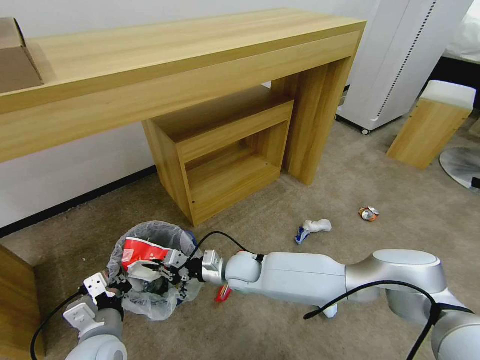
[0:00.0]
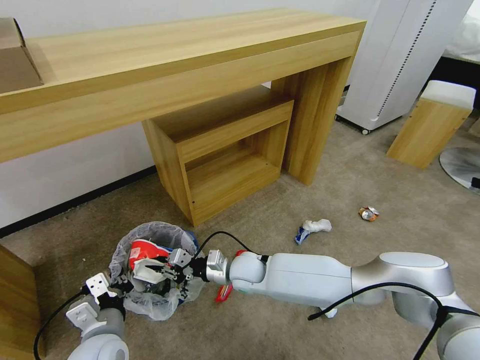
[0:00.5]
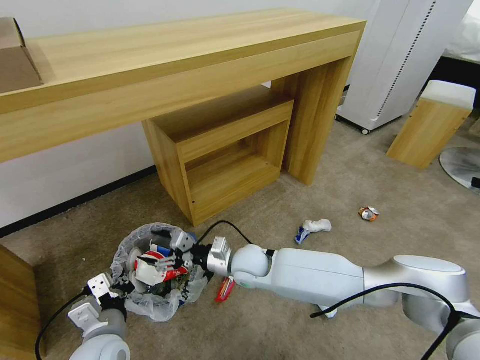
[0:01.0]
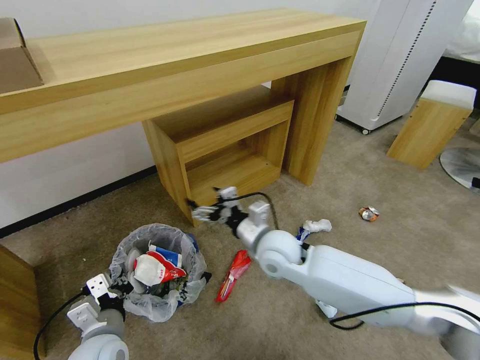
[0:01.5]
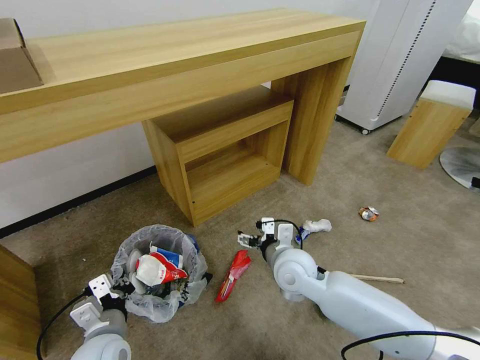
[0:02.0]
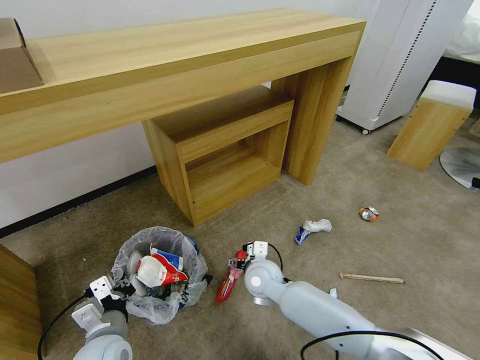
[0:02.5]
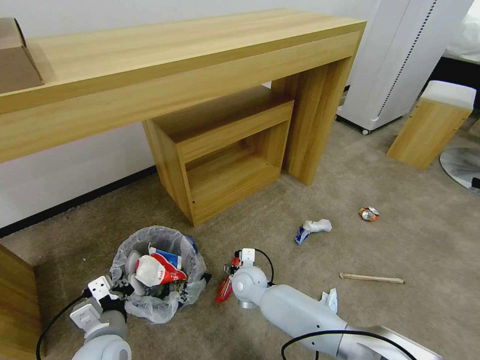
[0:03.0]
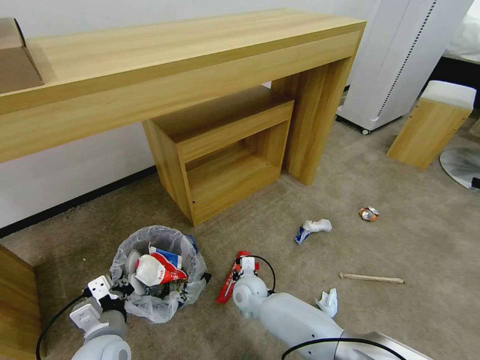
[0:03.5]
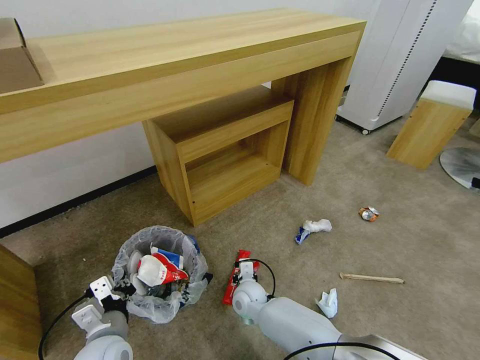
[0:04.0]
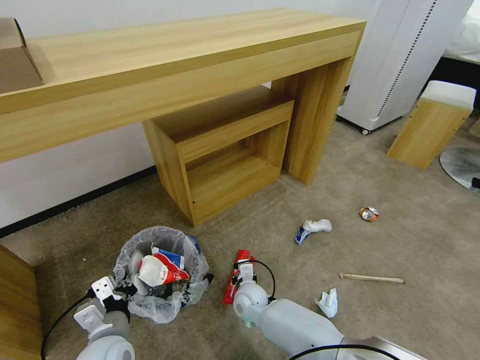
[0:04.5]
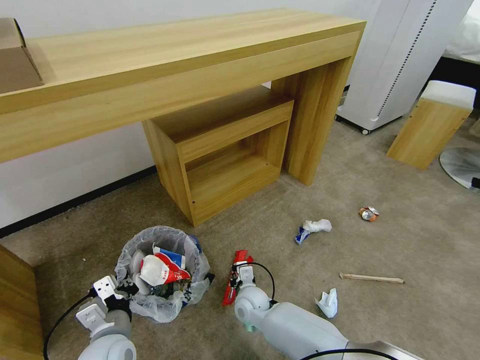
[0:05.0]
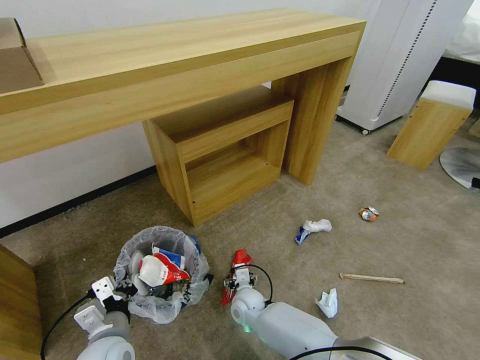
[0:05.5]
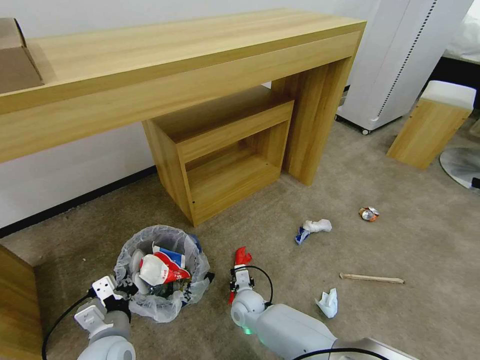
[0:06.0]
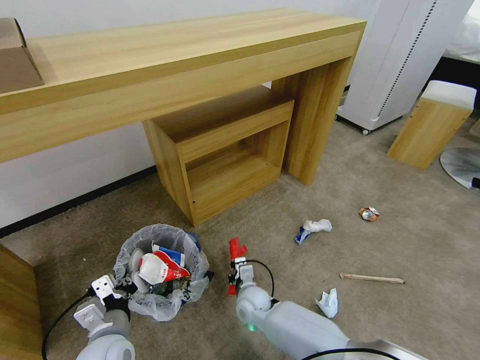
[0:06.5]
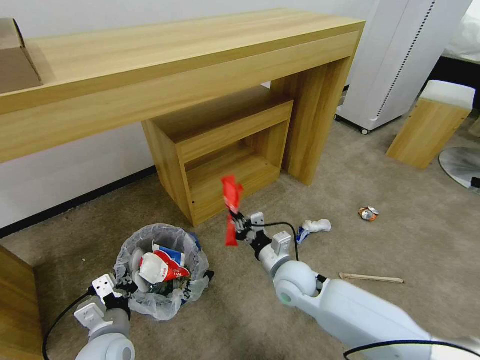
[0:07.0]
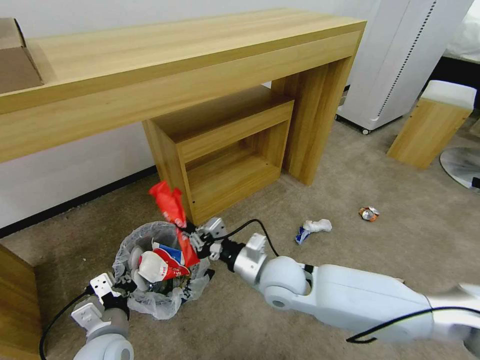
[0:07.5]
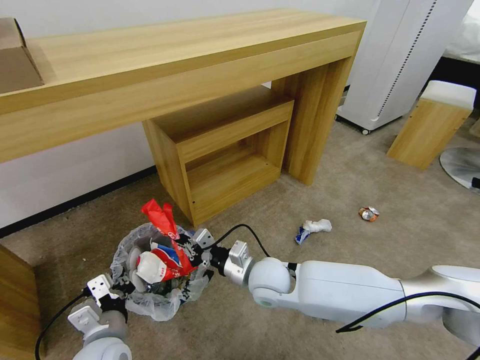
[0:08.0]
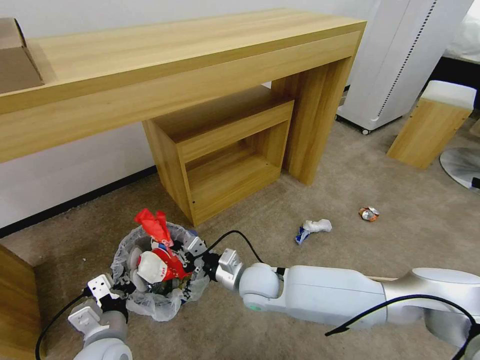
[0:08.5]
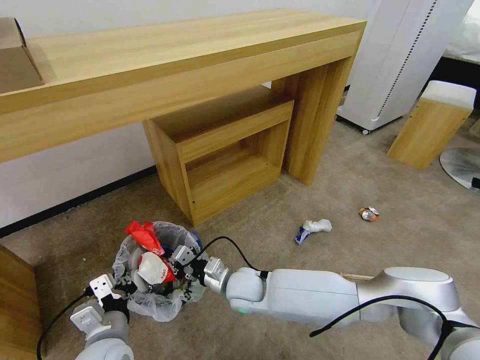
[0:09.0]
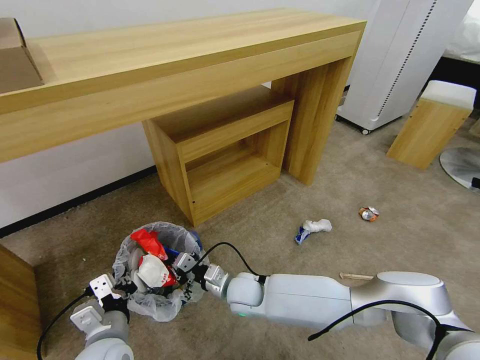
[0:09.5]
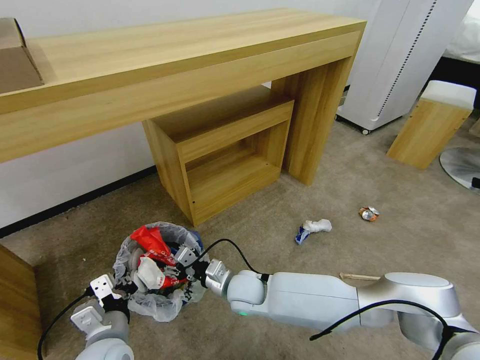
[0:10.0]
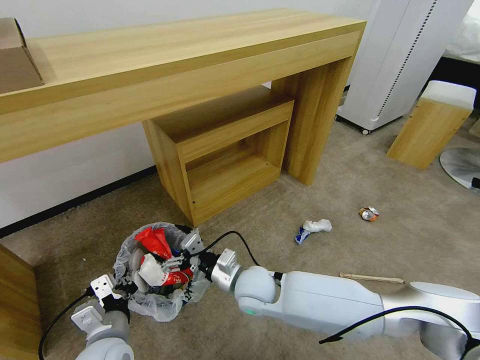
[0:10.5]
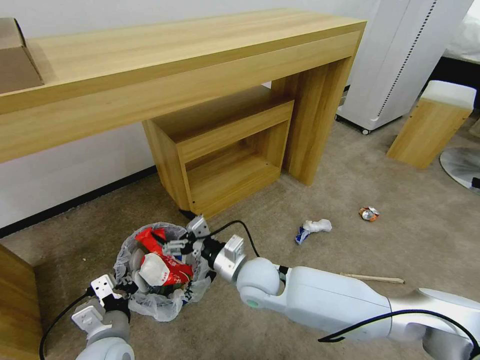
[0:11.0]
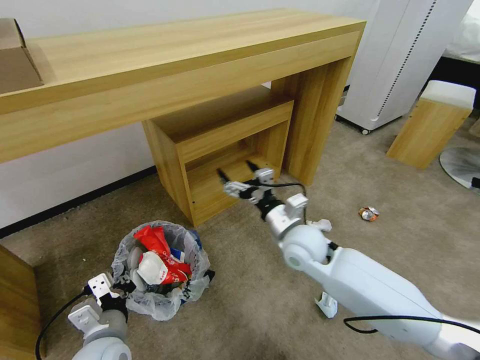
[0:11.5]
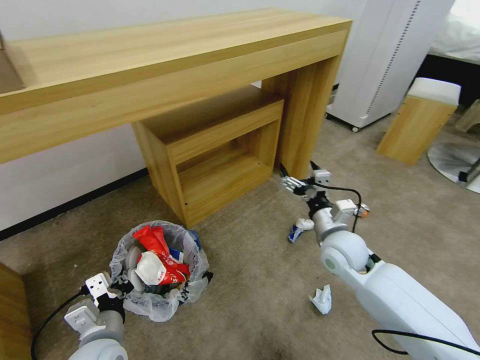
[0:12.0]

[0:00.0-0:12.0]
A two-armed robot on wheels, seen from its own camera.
Task of the whole recording: Pick up the trash bin and place the garbage on the floor into it.
0:00.0 to 0:02.0: The right gripper travels to the right and upward by about 15 cm, and opens.
0:02.0 to 0:04.0: The right gripper moves downward and to the left, roughly 20 cm, and closes up.
0:04.0 to 0:06.0: The right gripper opens, then closes once more.
0:06.0 to 0:08.0: The right gripper is displaced upward by some 20 cm, and closes up.
0:08.0 to 0:10.0: The right gripper heads downward, covering approximately 5 cm, and opens up.
0:10.0 to 0:12.0: The right gripper goes about 25 cm to the right and upward, and opens its fingers.

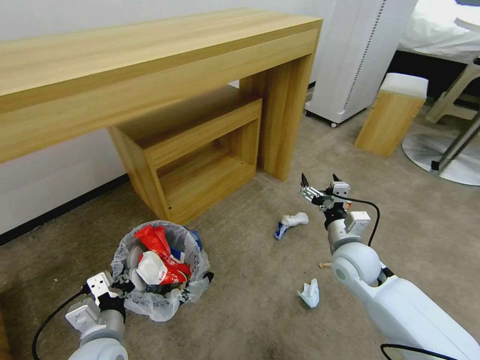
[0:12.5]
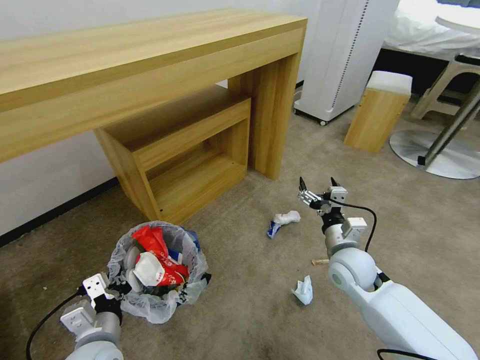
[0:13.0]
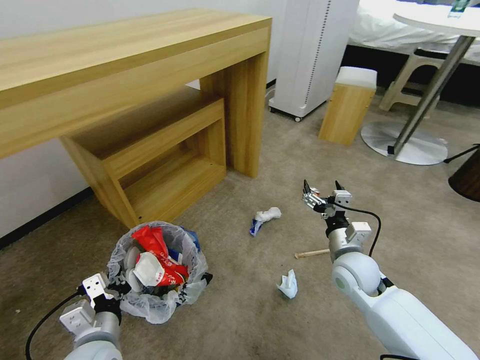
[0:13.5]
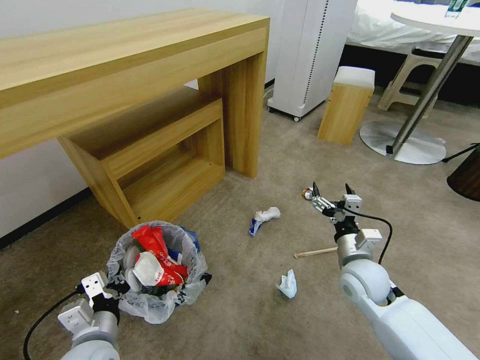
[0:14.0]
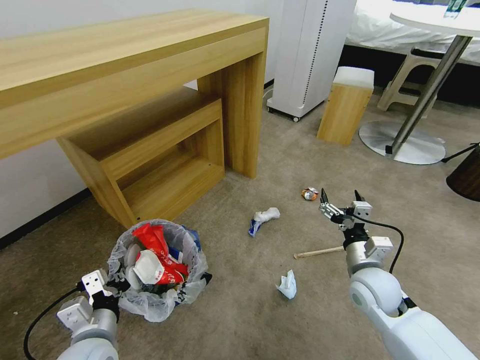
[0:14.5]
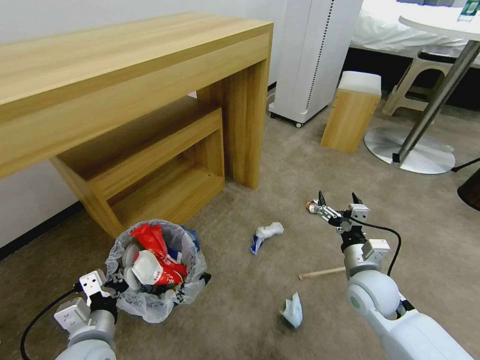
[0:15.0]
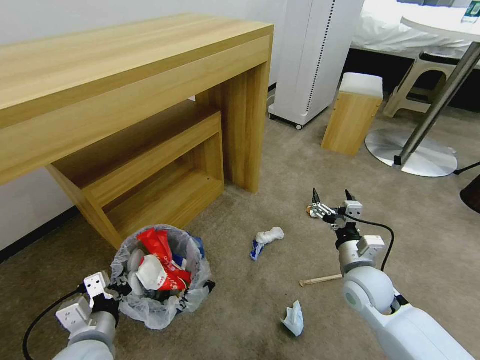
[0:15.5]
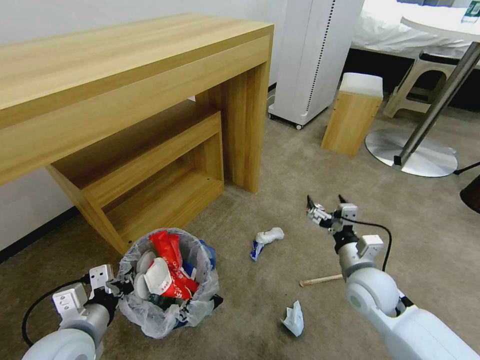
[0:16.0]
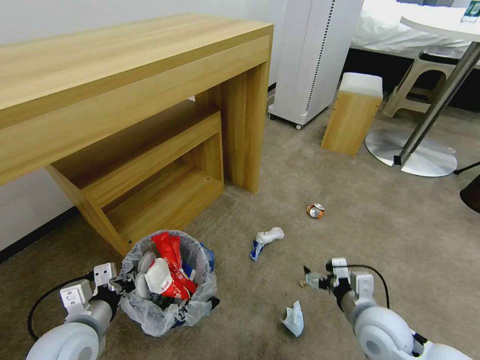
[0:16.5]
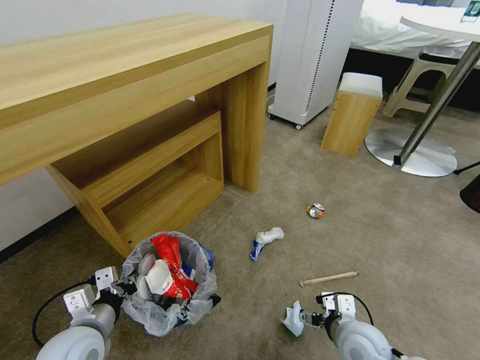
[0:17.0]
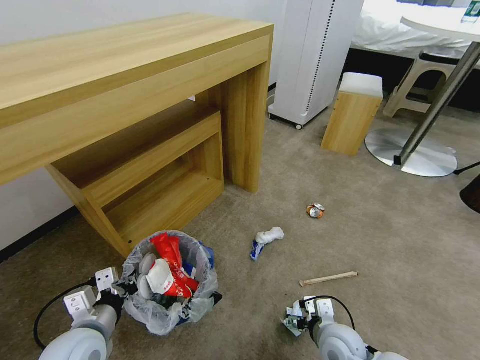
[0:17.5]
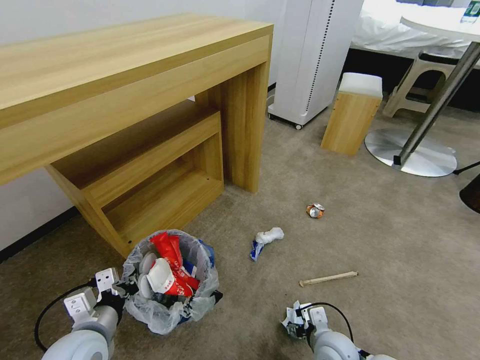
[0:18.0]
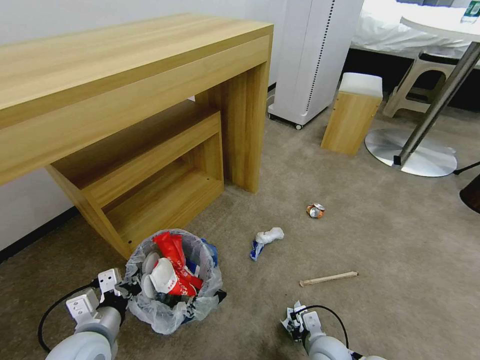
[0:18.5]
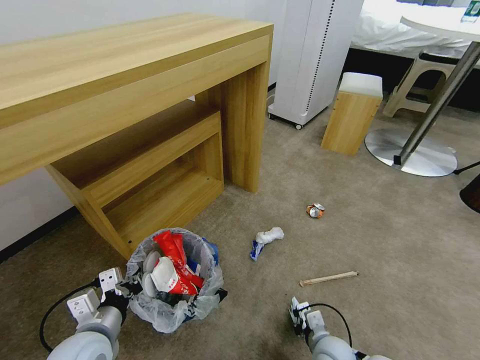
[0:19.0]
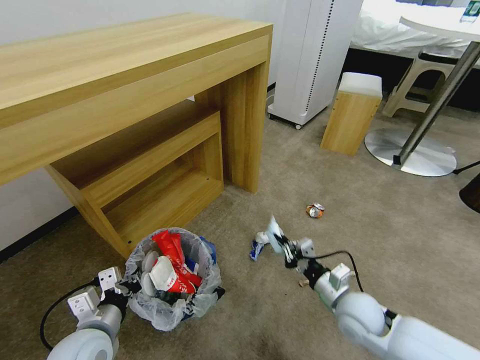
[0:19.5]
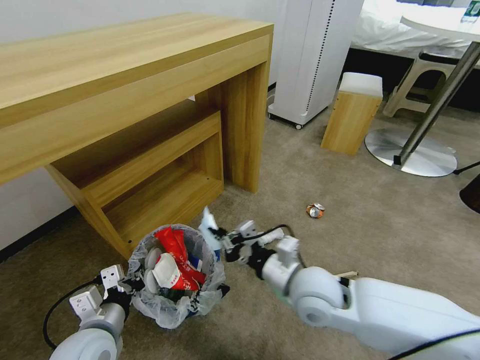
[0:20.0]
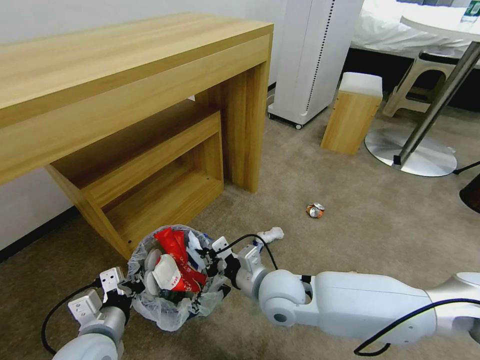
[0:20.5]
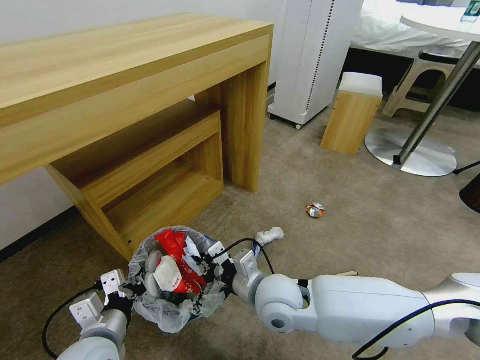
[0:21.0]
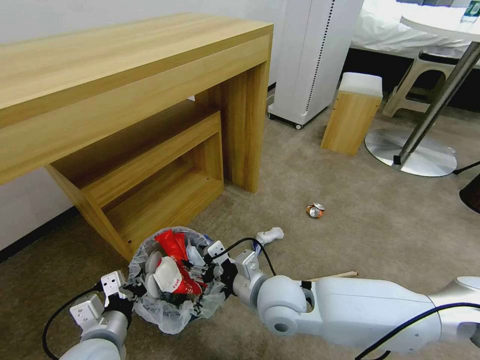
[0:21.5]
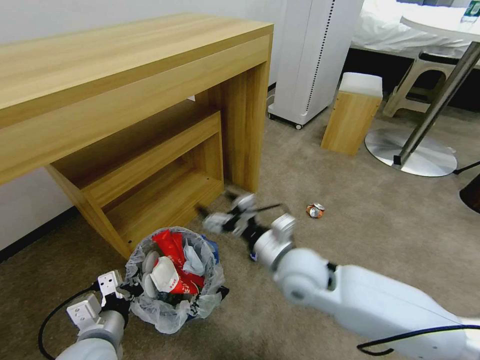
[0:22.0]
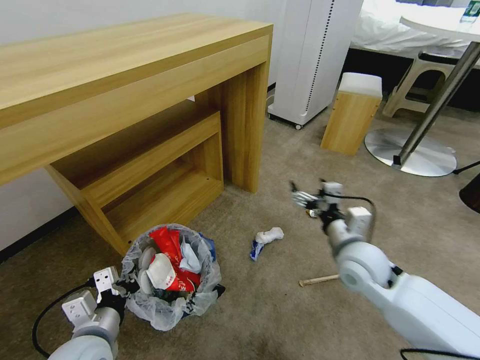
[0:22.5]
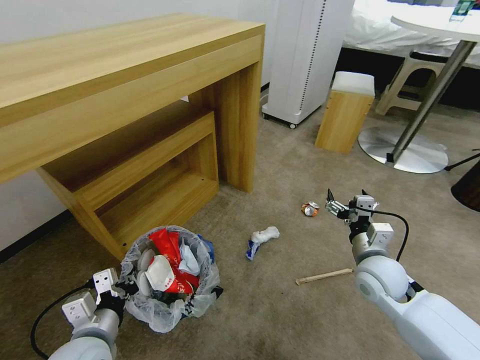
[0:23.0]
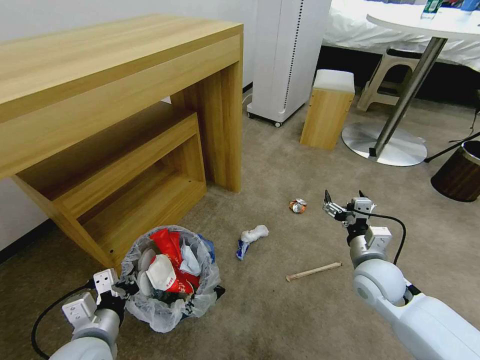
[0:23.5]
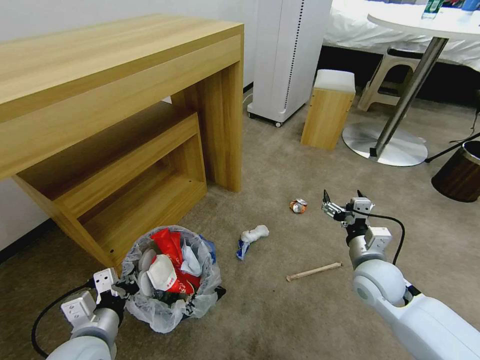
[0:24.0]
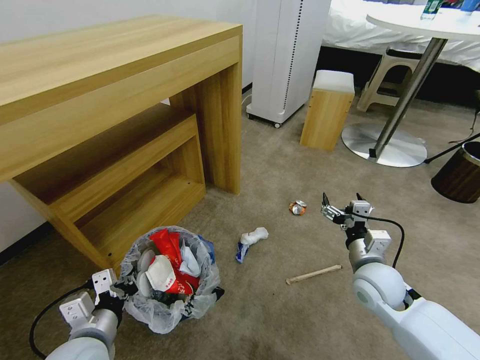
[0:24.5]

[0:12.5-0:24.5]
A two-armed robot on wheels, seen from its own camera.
Task of the whole recording: Pick up the trash bin and place the garbage on the floor into it.
0:12.5 to 0:14.5: The right gripper ends up some 5 cm from where it was.
0:14.5 to 0:16.5: The right gripper travels backward by roughly 10 cm.
0:16.5 to 0:18.5: The right gripper goes approximately 15 cm downward and to the left, and closes.
0:18.5 to 0:20.5: The right gripper moves upward, to the left and forward, roughly 25 cm, and closes.
0:20.5 to 0:22.5: The right gripper shifts roughly 15 cm to the right, and opens.
0:22.5 to 0:24.5: The right gripper shifts by approximately 5 cm.

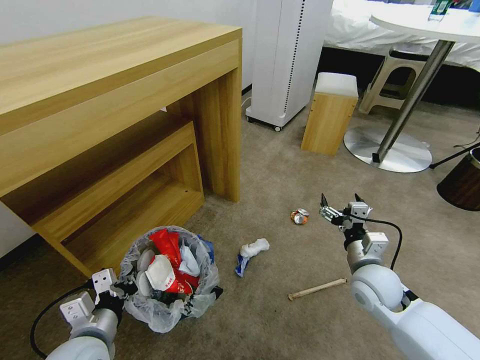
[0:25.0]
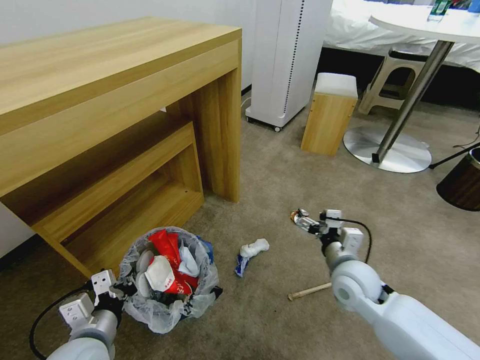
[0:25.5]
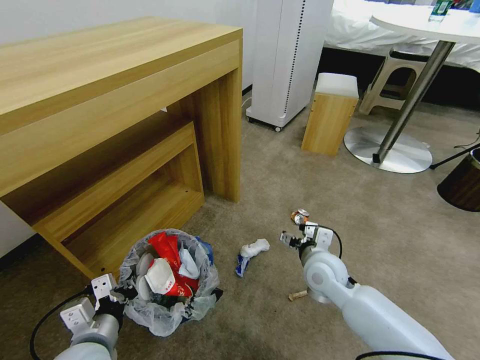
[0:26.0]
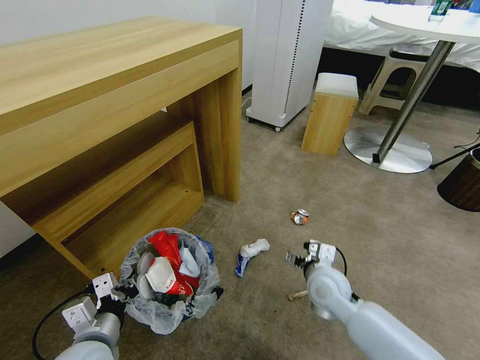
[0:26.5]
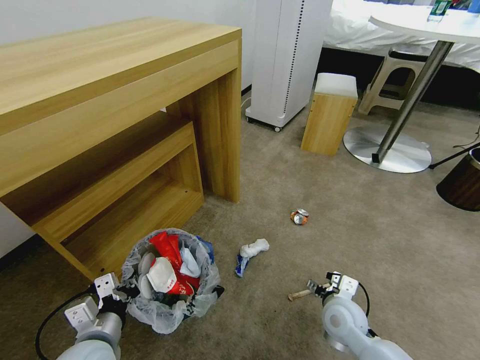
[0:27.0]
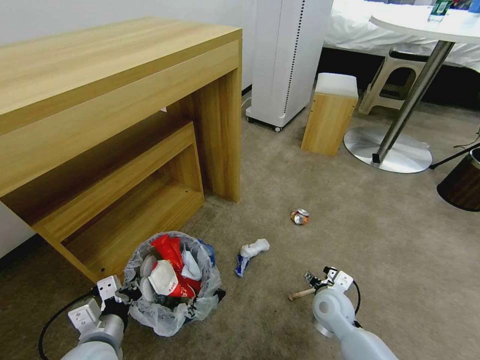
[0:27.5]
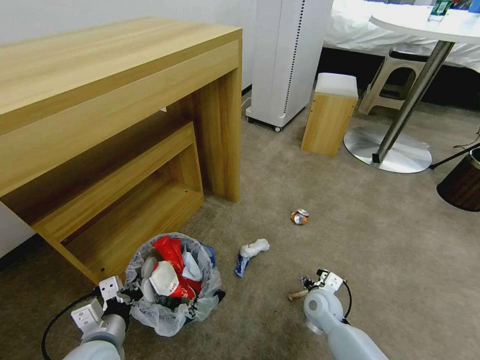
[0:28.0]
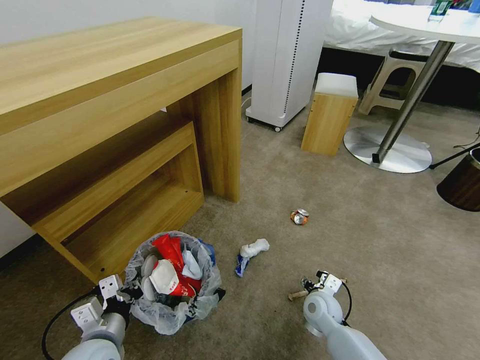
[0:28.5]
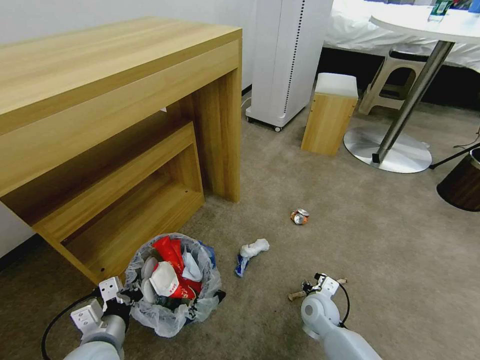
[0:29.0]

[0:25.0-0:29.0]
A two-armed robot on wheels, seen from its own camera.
Task of the whole recording: Pick up the trash bin and place the garbage on the floor into it.
0:25.0 to 0:27.0: The right gripper goes some 10 cm downward and to the left.
0:27.0 to 0:29.0: The right gripper is displaced downward by some 10 cm.
